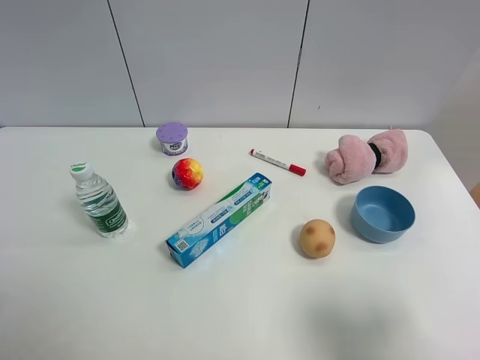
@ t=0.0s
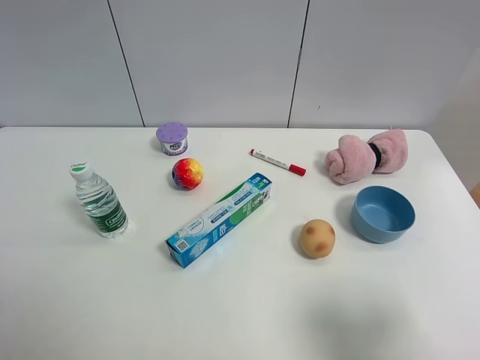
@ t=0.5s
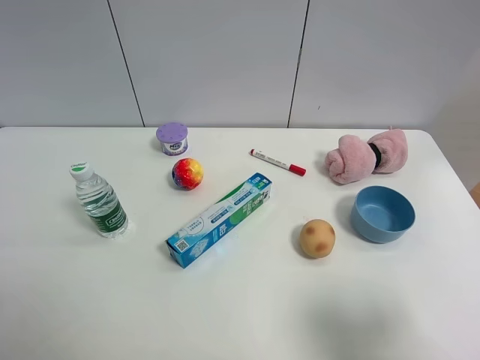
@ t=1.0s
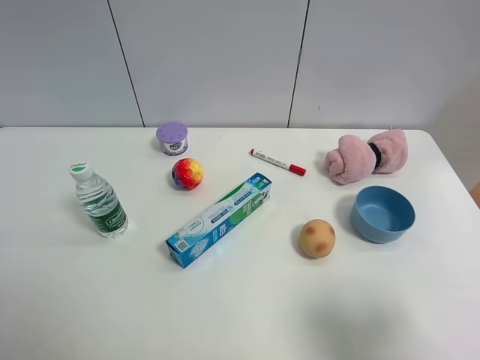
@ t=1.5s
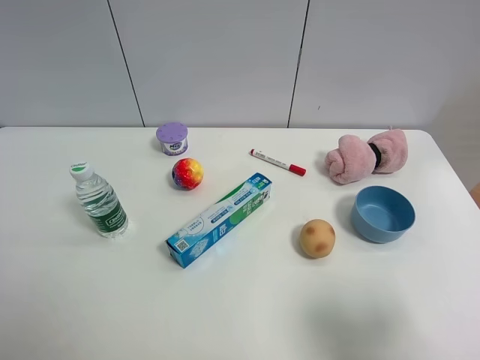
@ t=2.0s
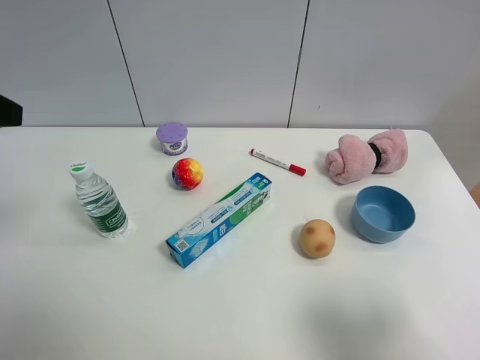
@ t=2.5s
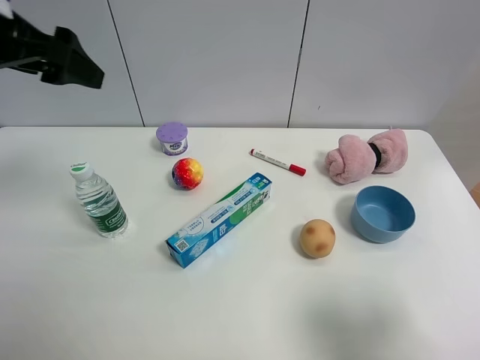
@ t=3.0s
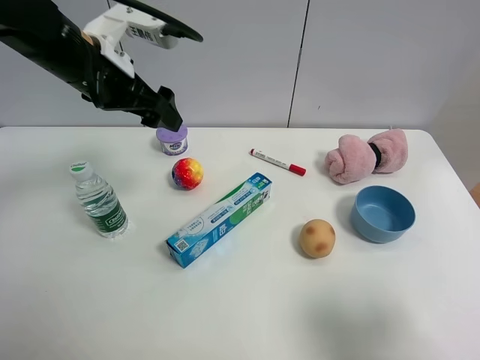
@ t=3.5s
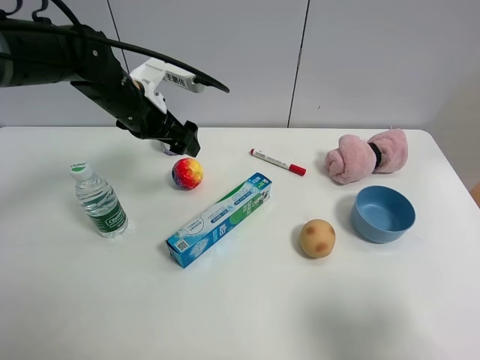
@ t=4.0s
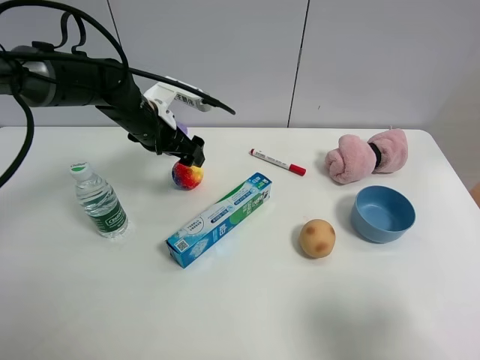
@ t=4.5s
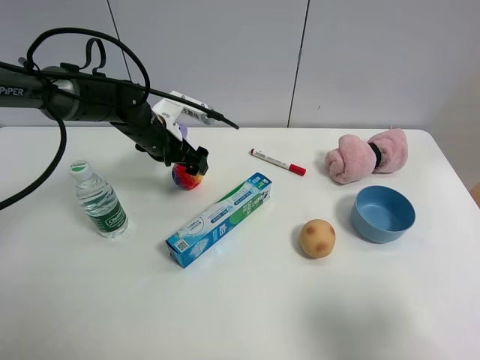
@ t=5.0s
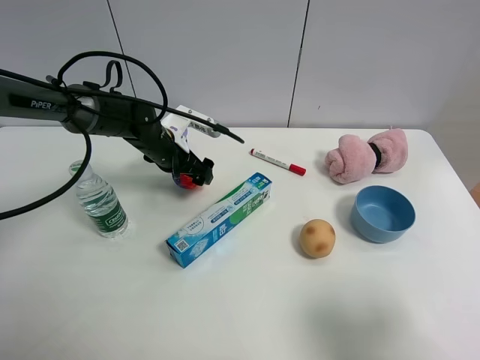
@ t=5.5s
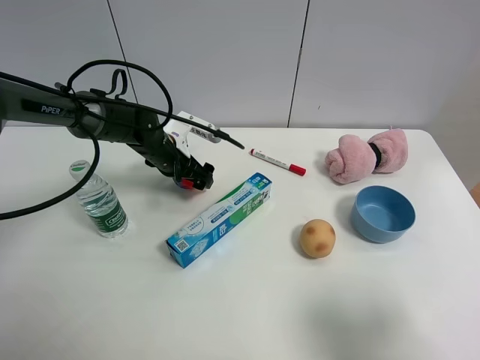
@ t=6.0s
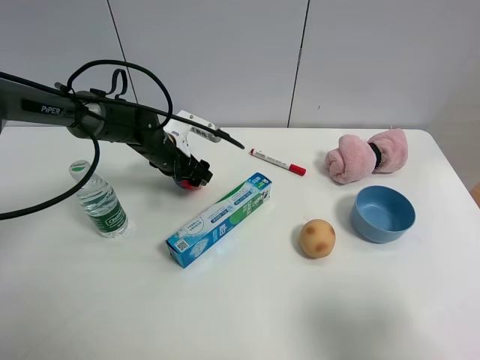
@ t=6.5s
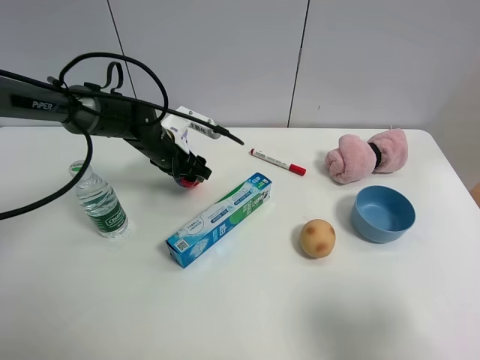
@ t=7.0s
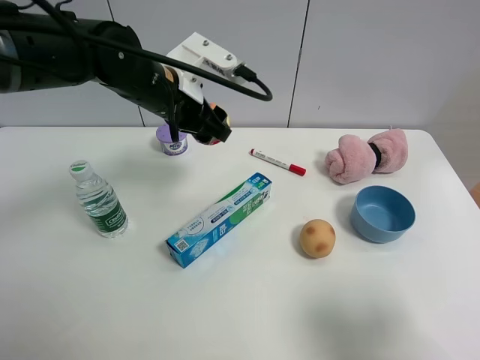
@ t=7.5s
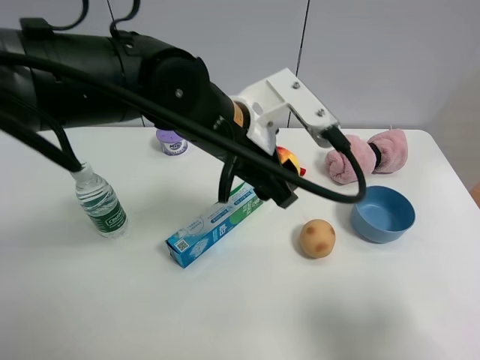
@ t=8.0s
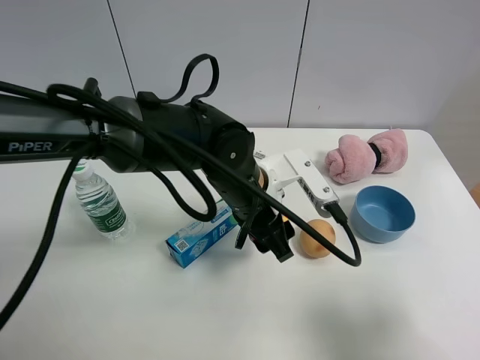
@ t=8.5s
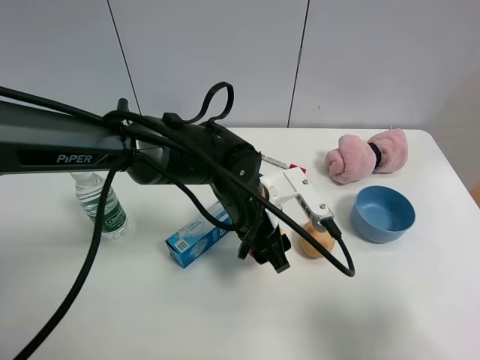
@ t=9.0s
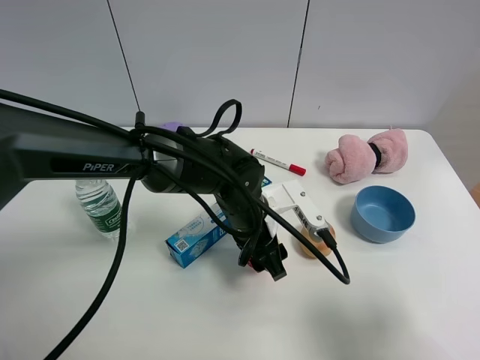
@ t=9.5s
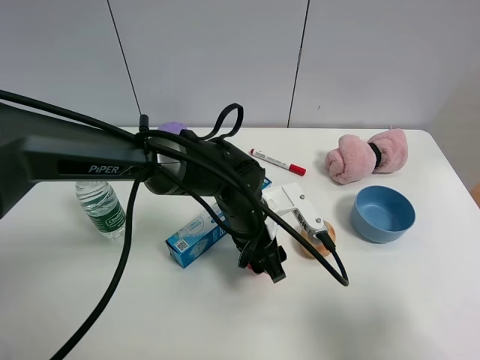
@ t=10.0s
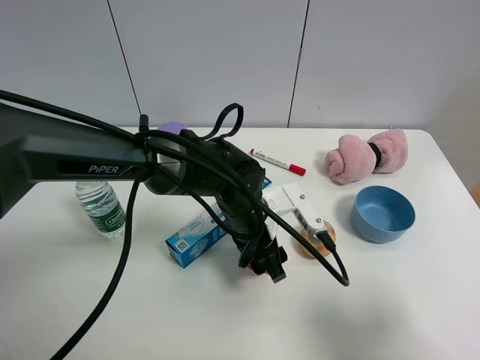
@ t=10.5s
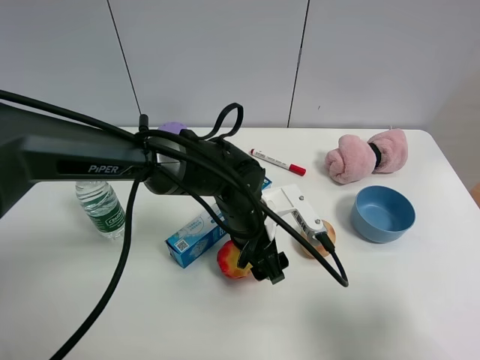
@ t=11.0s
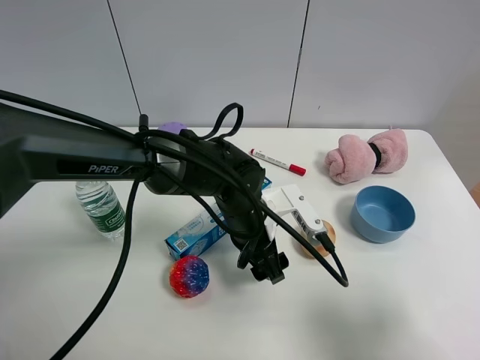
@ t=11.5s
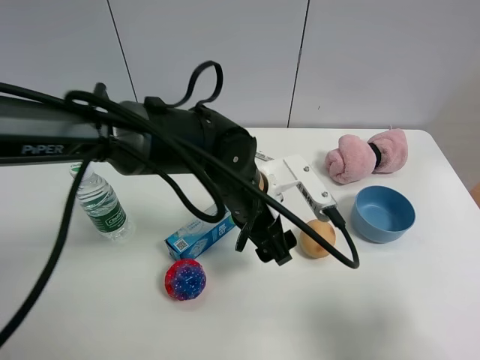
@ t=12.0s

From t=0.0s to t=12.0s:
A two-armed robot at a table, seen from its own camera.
Task of the whole recording: the gripper move the object.
Step, from t=0.0s to t=6.5s: Grasp the colorful ball with the left gripper.
Step, from t=7.0s to t=10.5s: Place the colorful ball on the table with the left gripper.
From t=2.0s to t=4.0s: The left gripper is displaced forward and to the right by roughly 35 cm.
From t=4.0s to t=6.0s: The left gripper shifts about 10 cm downward.
From t=6.0s to t=8.0s: The left gripper travels backward, upward and to the right by approximately 25 cm, and closes its fingers.
From t=8.0s to t=10.0s: The left gripper moves downward, about 15 cm.
From t=10.0s to t=12.0s: The left gripper goes roughly 5 cm upward, and opens its fingers.

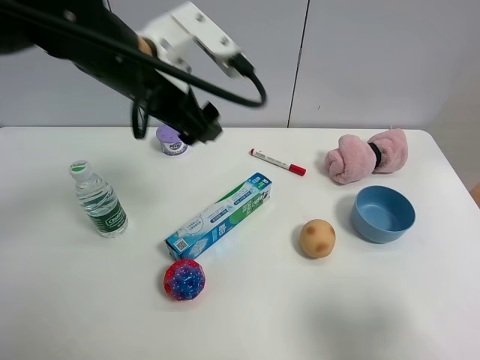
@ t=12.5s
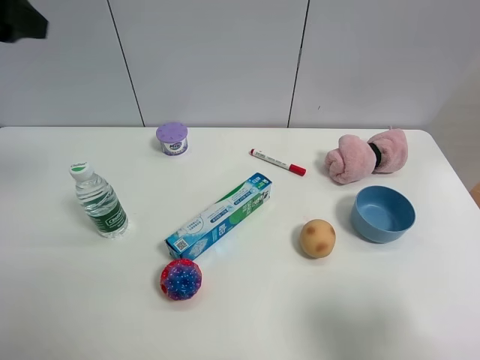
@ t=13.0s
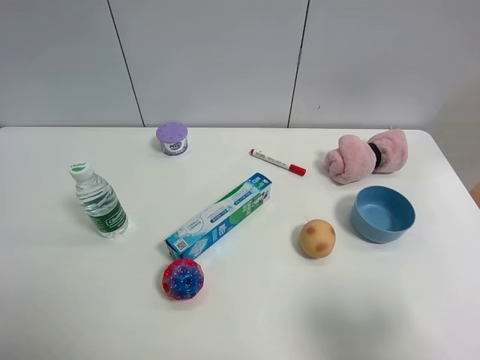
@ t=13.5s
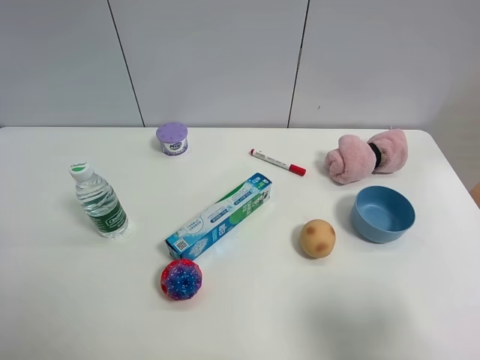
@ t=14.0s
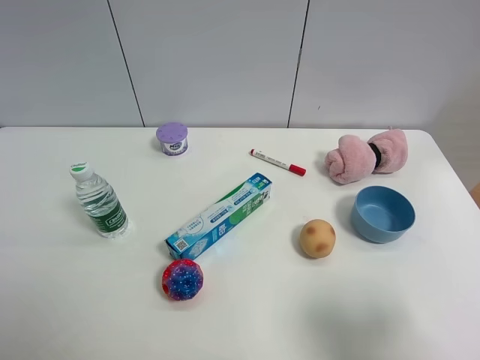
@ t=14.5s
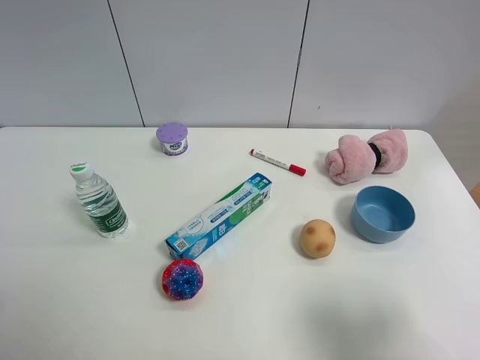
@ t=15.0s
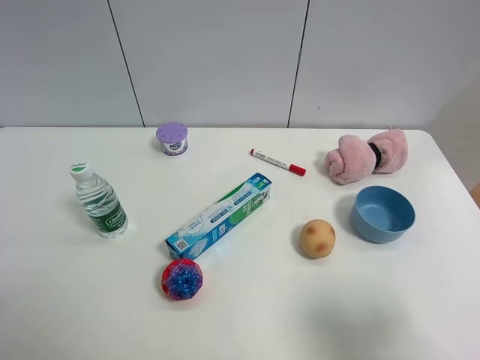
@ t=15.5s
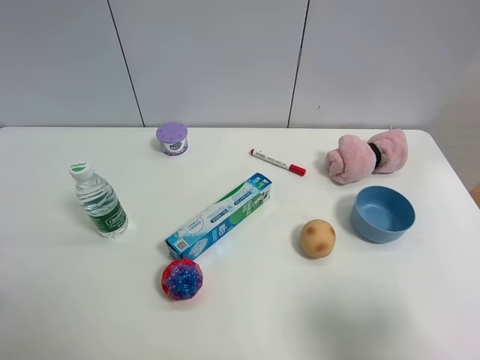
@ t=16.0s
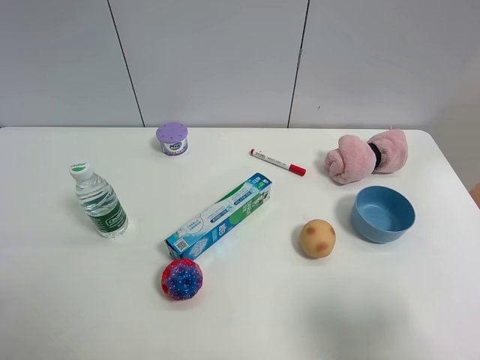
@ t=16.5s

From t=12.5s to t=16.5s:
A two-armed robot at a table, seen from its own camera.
Task of the whole recording: the gripper move the object.
From t=12.5s to t=14.5s: The left gripper goes about 35 cm backward and to the left, and opens up.
